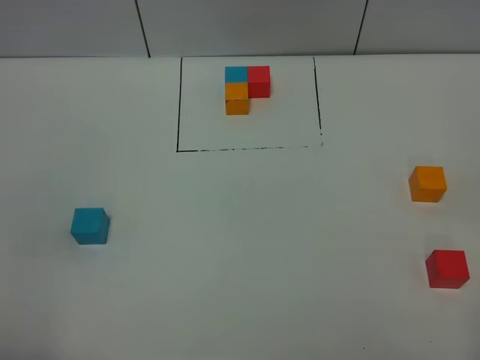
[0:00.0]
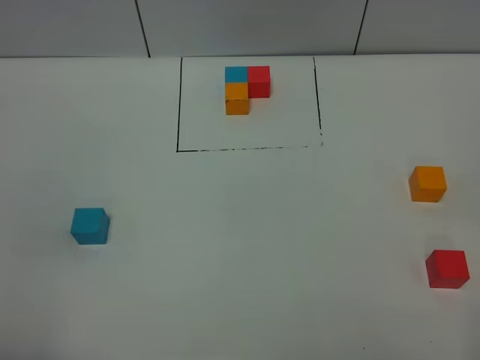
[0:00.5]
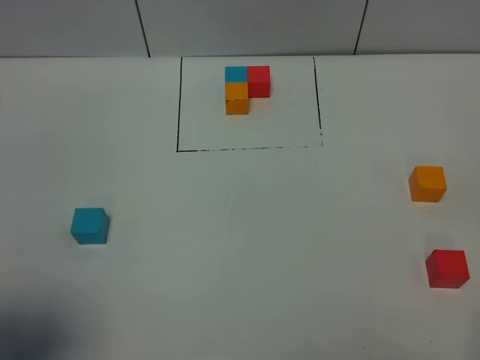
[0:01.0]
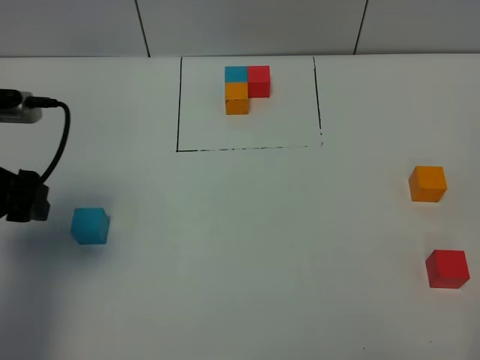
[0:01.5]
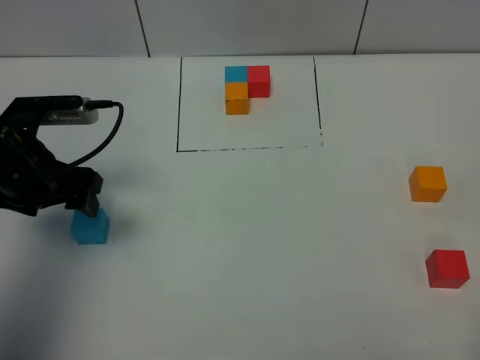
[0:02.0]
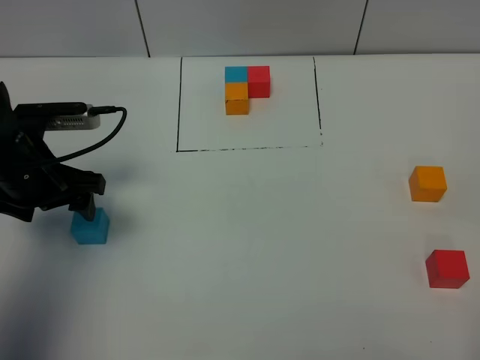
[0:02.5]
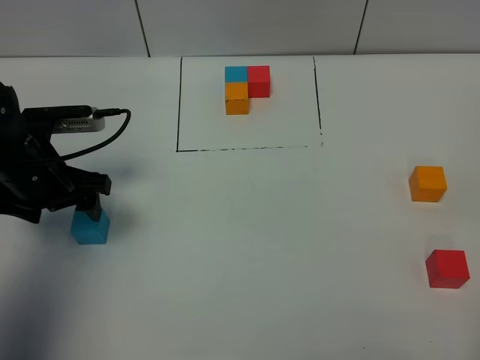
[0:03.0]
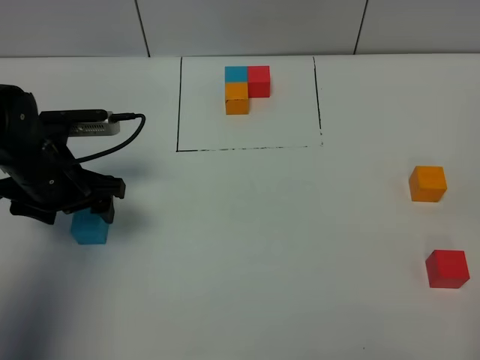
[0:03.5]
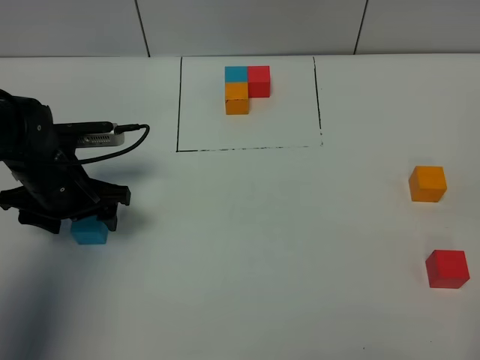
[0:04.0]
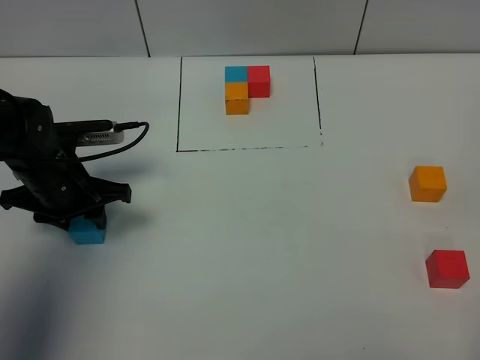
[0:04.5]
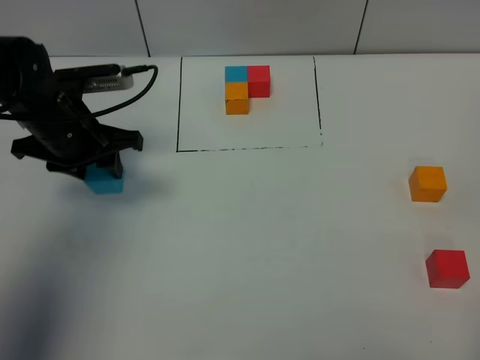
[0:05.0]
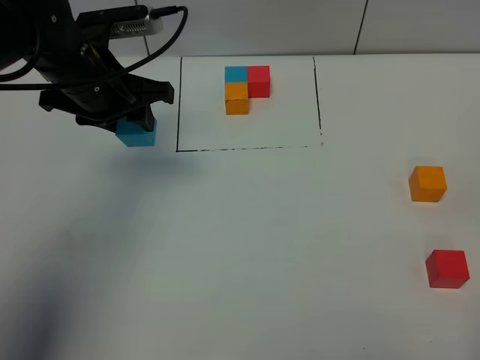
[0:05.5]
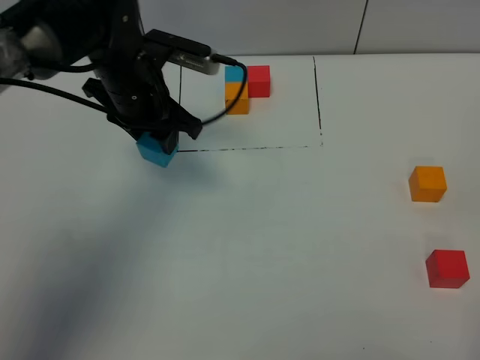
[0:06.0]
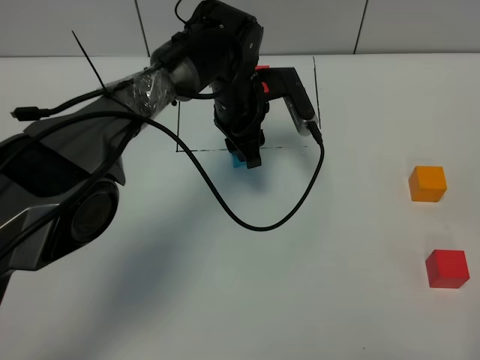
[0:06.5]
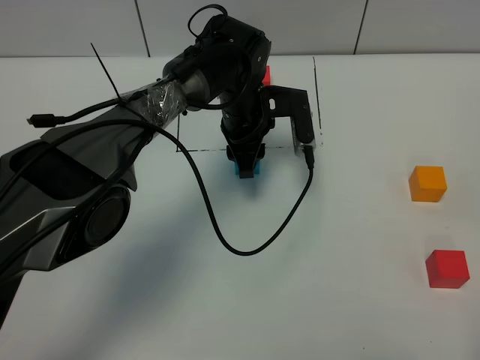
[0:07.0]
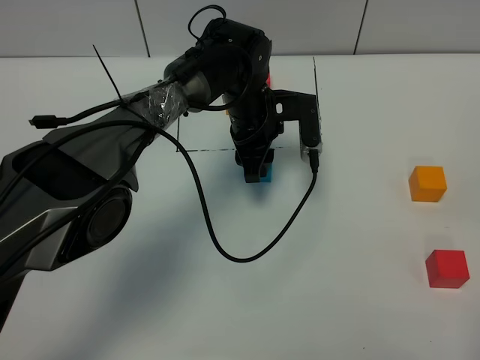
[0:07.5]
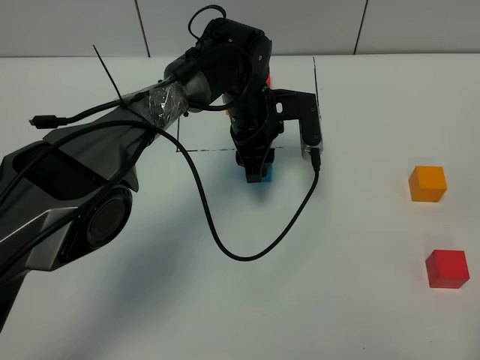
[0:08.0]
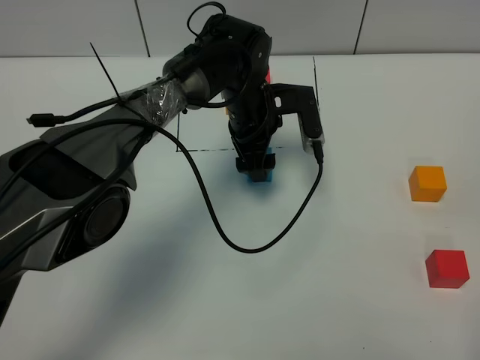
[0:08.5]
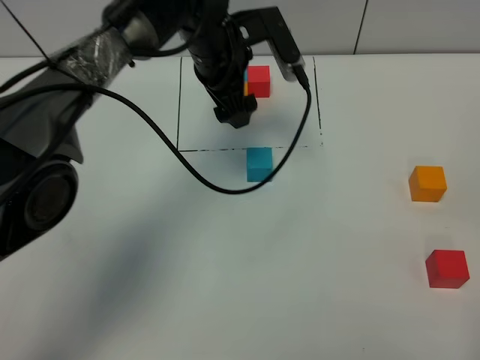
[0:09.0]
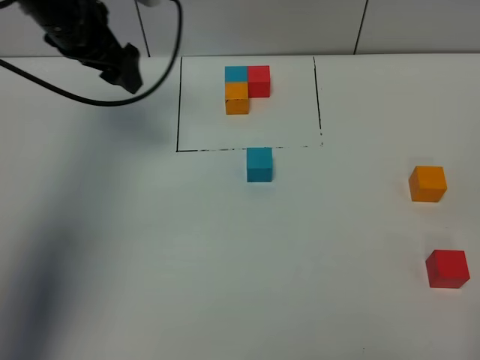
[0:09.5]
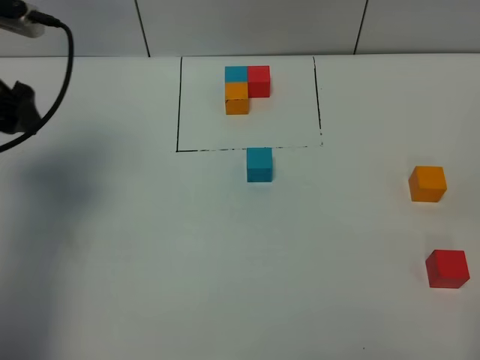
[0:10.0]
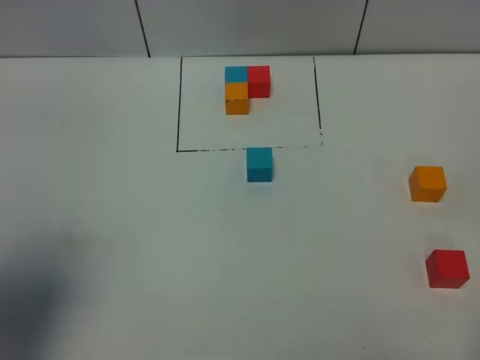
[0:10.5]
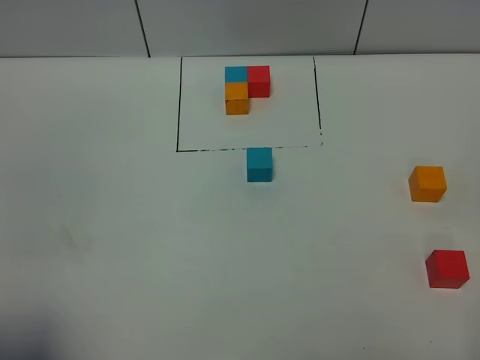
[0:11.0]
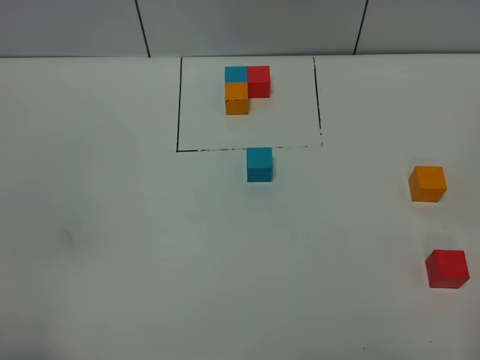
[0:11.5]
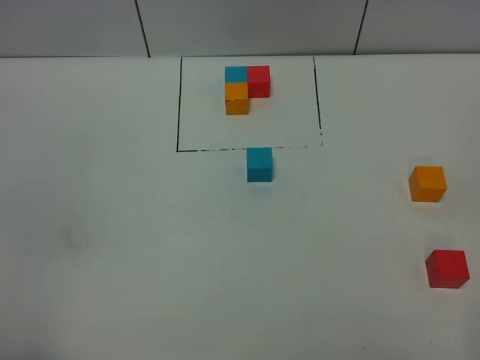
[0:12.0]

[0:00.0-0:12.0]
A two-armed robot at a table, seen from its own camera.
Task of the whole recording: According to the building block template in front, assemble the scattered blocks together.
Step, 0:00.0 to 0:08.0: Put the blue build block in the center of the table.
0:00.0 to 0:02.0: The left gripper travels forward by approximately 30 cm.
0:02.0 to 0:04.0: The left gripper is displaced downward by approximately 5 cm.
0:04.0 to 0:06.0: The left gripper is displaced to the right, forward and upward by about 15 cm, and closes up.
0:06.0 to 0:08.0: The left gripper shifts approximately 15 cm to the right and downward.
0:08.0 to 0:10.0: The left gripper moves to the left and upward, roughly 35 cm, and opens.
0:10.0 to 0:12.0: The left gripper moves backward, roughly 30 cm.

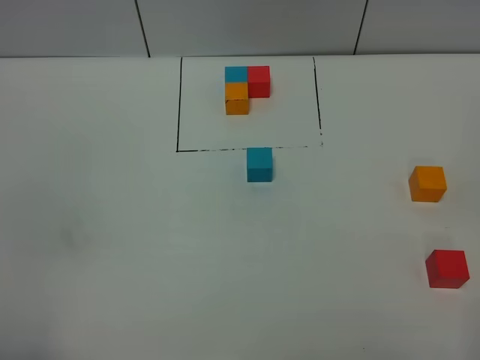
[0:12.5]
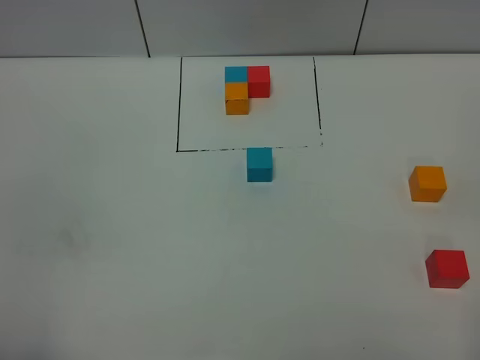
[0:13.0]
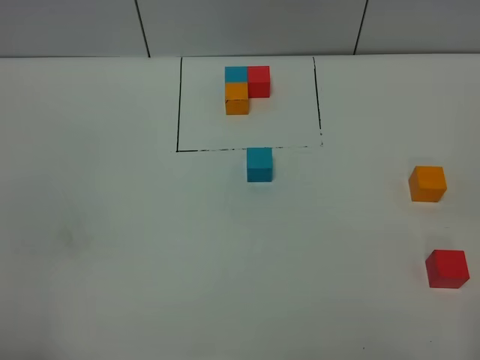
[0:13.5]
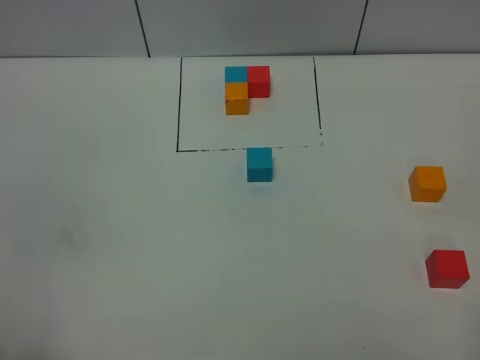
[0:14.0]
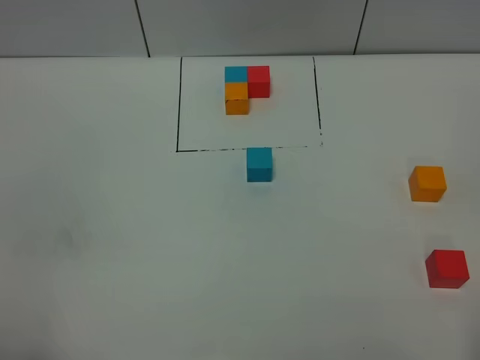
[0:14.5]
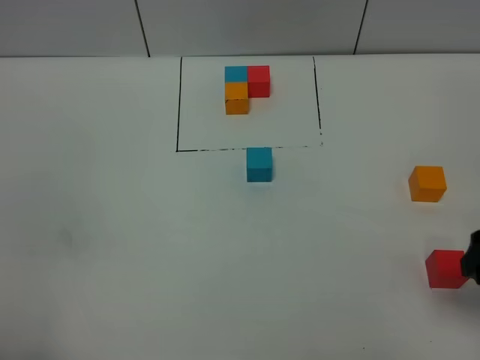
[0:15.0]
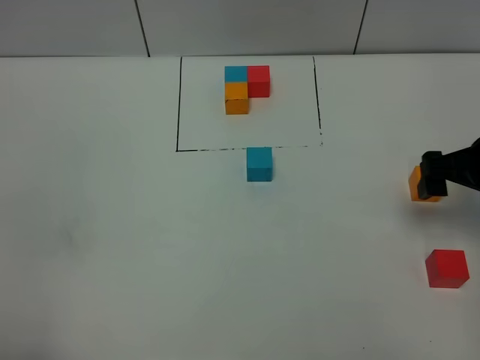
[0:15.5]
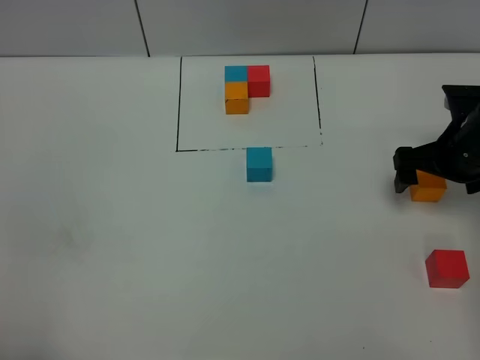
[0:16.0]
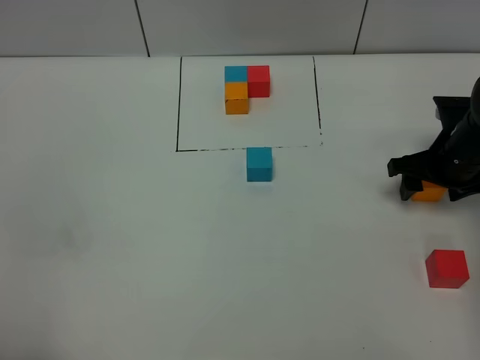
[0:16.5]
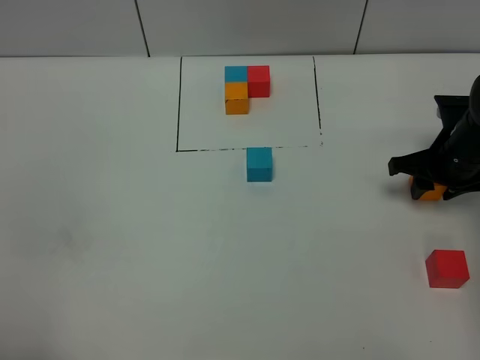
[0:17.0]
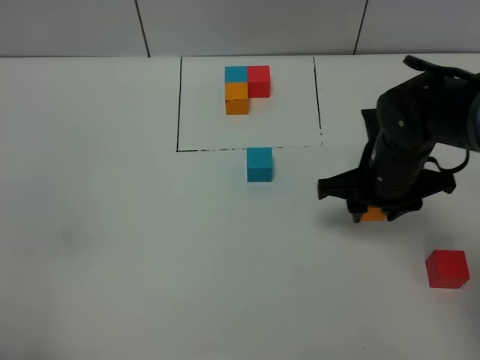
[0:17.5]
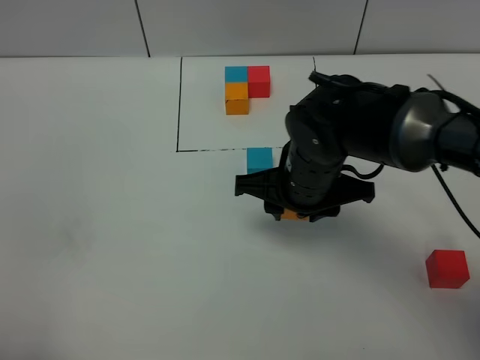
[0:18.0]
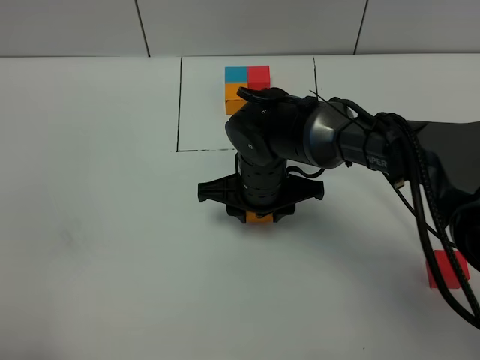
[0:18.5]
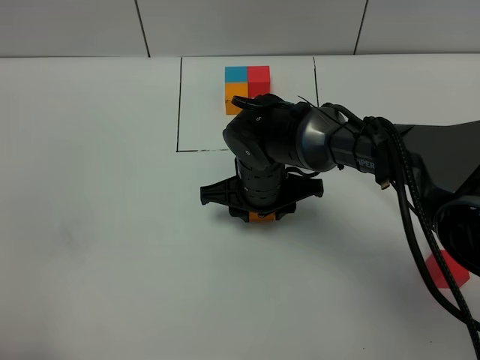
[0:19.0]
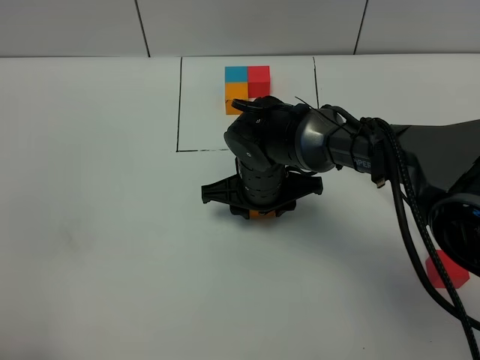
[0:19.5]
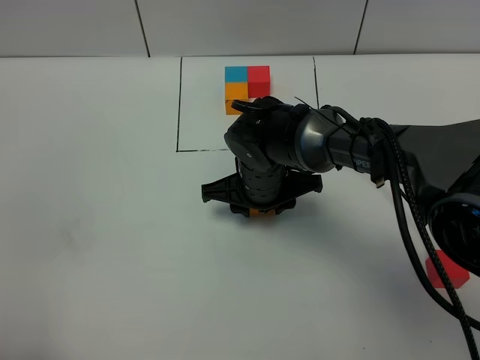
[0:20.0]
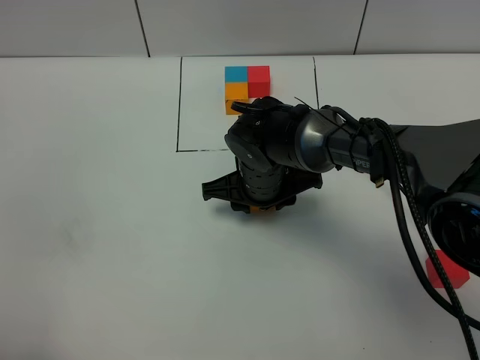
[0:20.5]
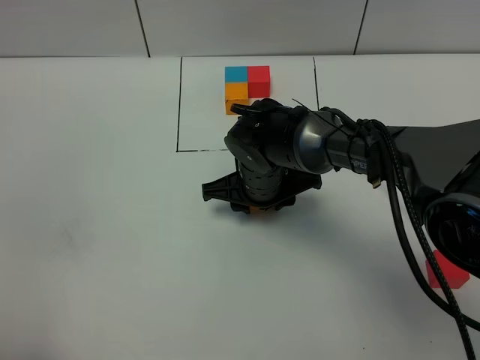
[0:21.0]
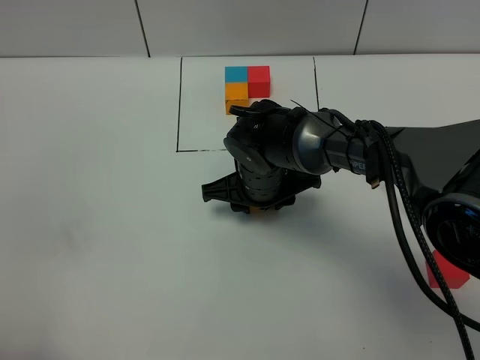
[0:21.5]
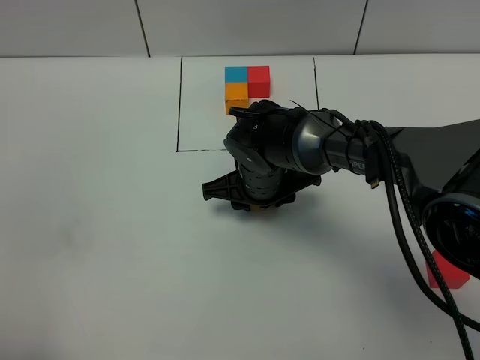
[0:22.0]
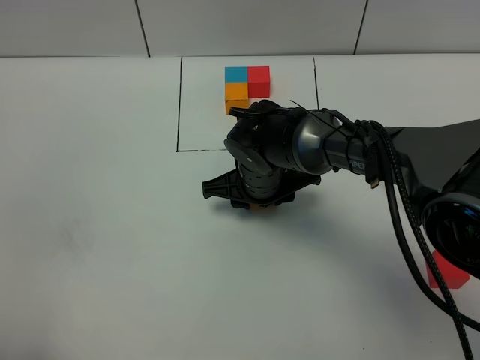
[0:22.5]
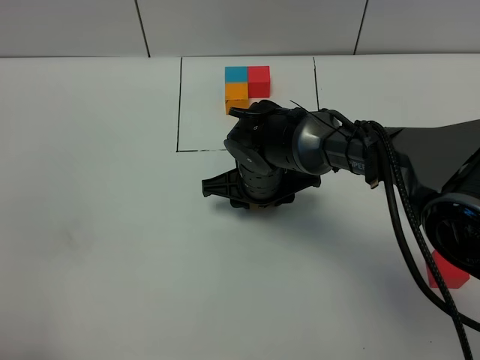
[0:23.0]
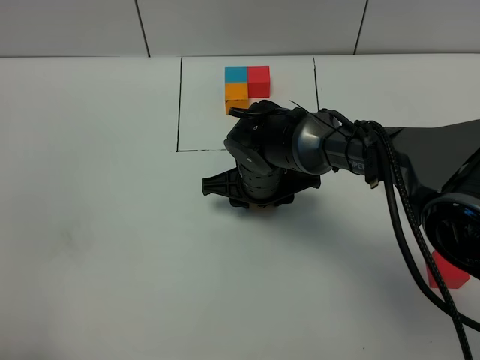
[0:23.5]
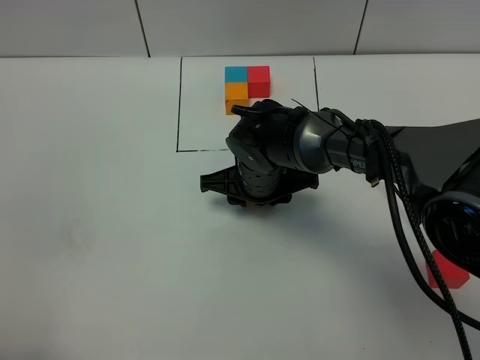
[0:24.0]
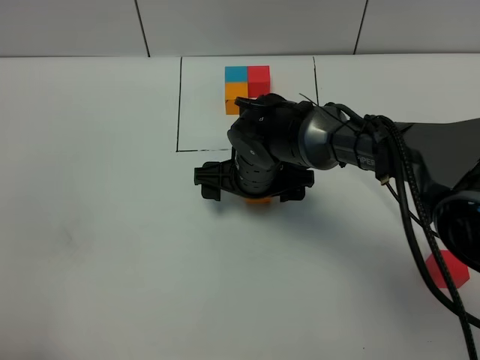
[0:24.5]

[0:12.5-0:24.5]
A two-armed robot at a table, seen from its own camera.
Task of the whole recording: According to the building block template in front, assemble the scattered blocks together.
Step, 0:12.5 to 0:24.0: Put the orange build block on the behind of the blue build block.
0:14.5 to 0:16.5: The right gripper moves forward and downward, about 35 cm.
0:16.5 to 0:18.5: The right gripper shifts approximately 25 cm to the left, and closes its fingers.
0:18.5 to 0:20.5: The grippers move only a little.
0:20.5 to 0:22.5: Neither gripper changes place.
0:22.5 to 0:24.5: The right gripper opens up.

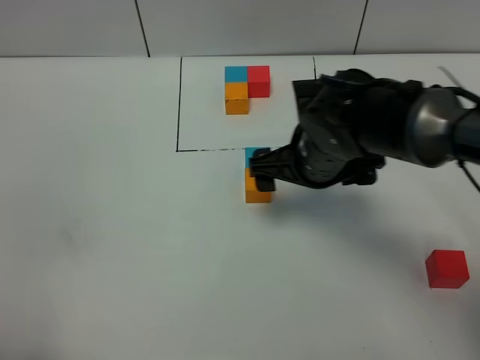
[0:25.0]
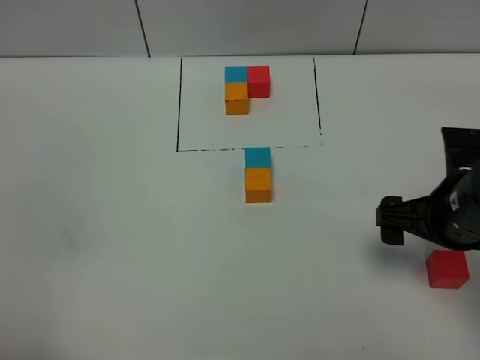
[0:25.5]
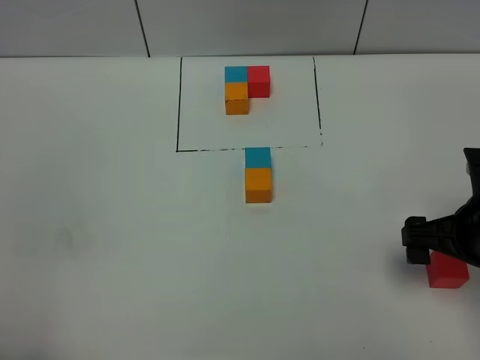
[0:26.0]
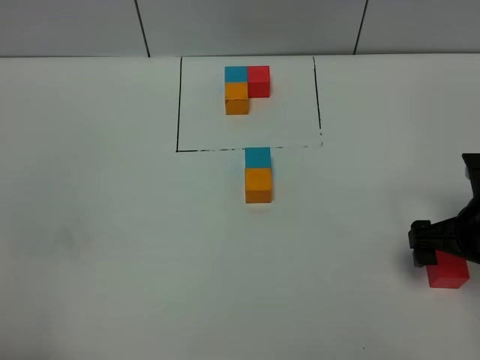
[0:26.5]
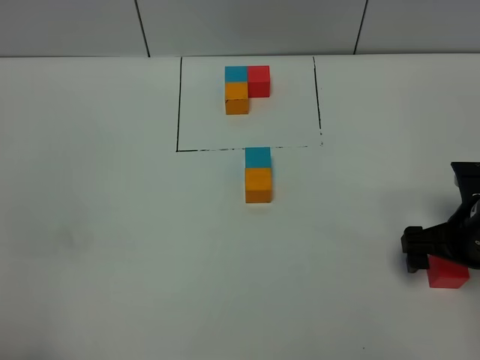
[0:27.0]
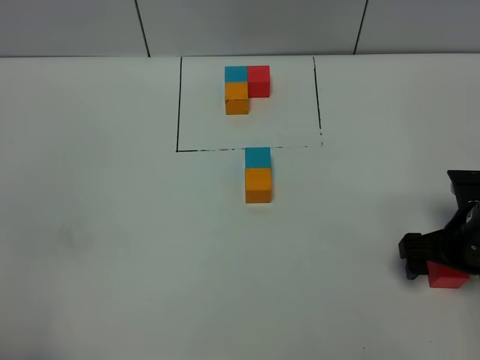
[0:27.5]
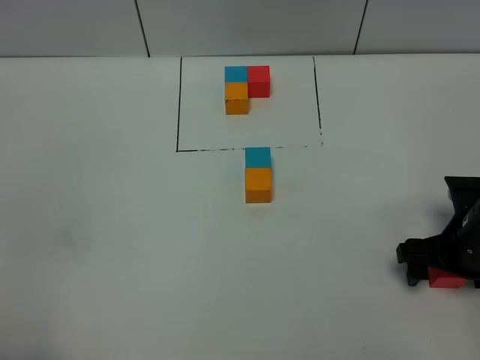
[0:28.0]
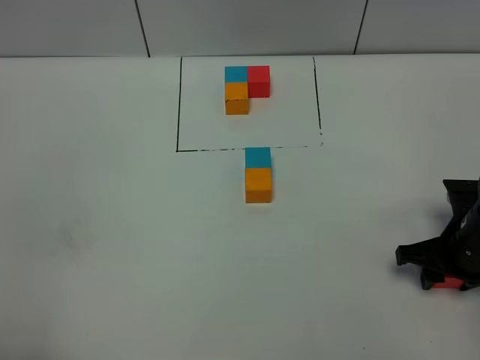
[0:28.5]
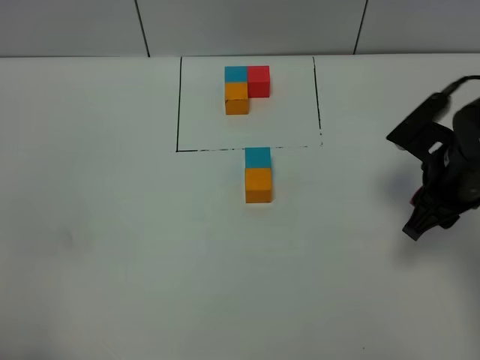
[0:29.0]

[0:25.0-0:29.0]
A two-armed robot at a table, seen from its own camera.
Task of the whole recording: According to the building block template in front, assemble the scattered blocks together.
0:25.0 to 0:27.0: The right gripper moves to the right, roughly 15 cm.
0:27.0 to 0:29.0: The right gripper ends up roughly 10 cm from where it was, and closes up.
